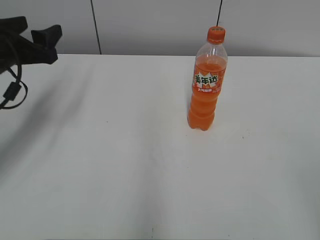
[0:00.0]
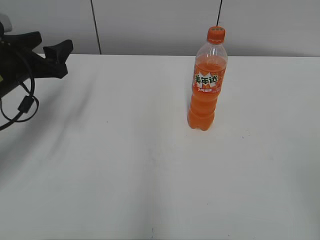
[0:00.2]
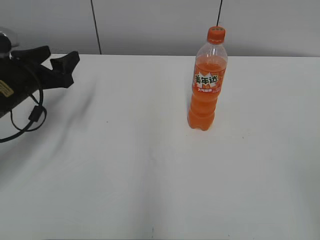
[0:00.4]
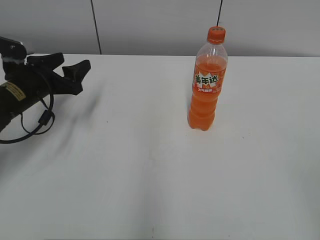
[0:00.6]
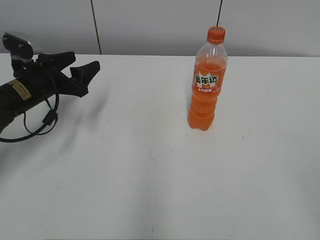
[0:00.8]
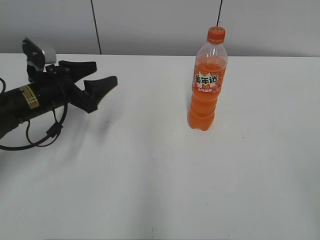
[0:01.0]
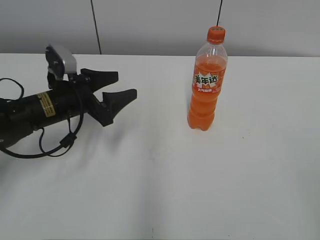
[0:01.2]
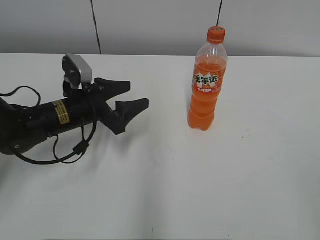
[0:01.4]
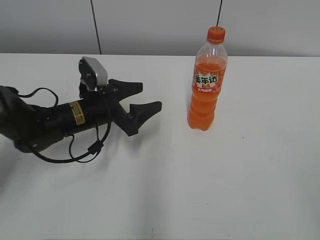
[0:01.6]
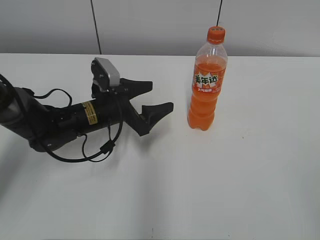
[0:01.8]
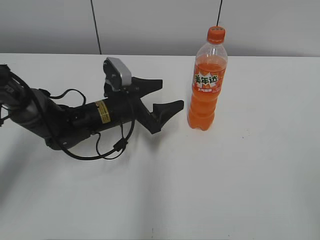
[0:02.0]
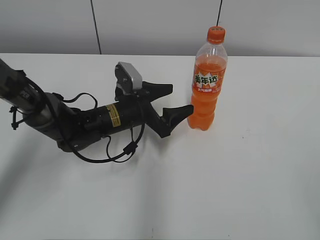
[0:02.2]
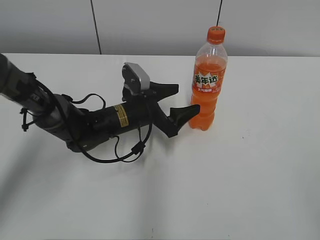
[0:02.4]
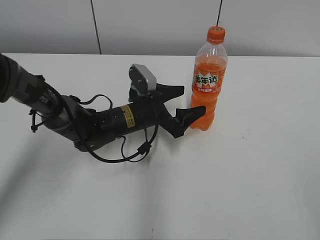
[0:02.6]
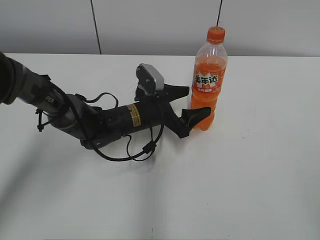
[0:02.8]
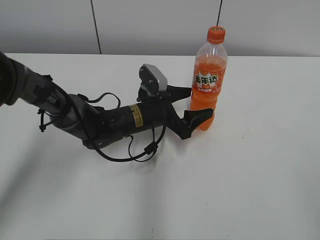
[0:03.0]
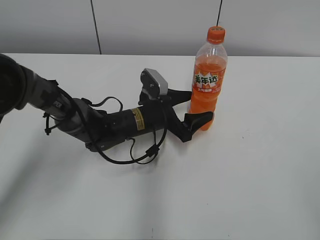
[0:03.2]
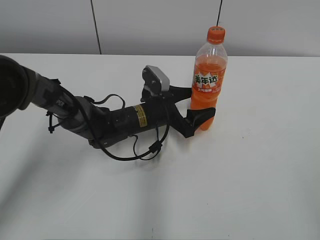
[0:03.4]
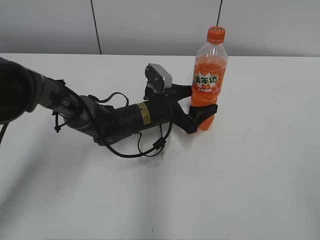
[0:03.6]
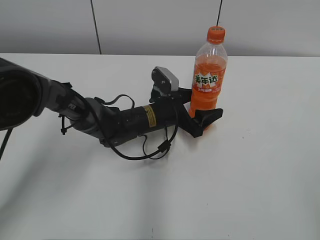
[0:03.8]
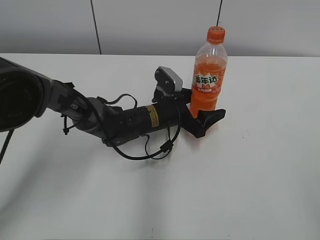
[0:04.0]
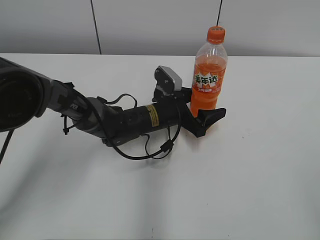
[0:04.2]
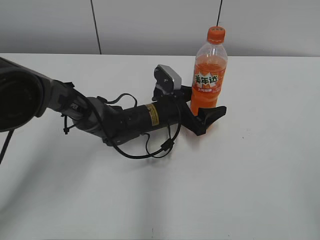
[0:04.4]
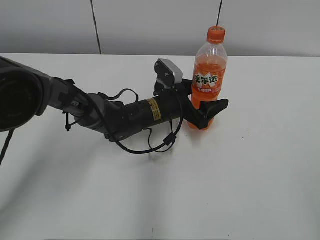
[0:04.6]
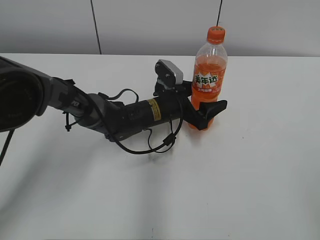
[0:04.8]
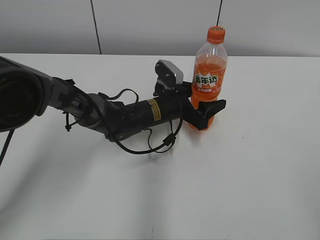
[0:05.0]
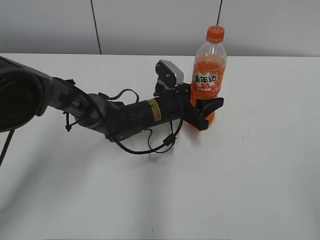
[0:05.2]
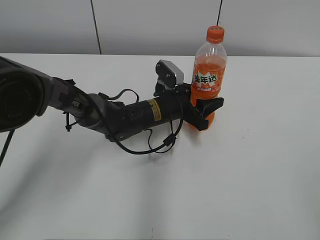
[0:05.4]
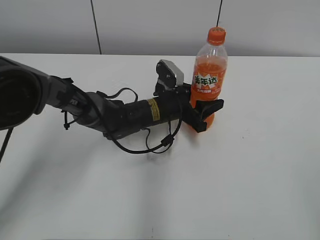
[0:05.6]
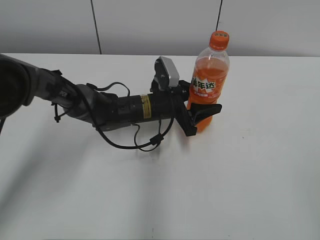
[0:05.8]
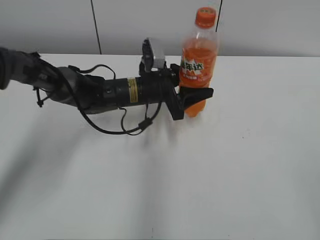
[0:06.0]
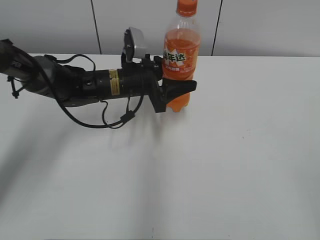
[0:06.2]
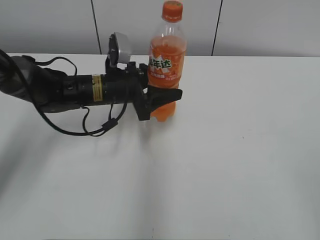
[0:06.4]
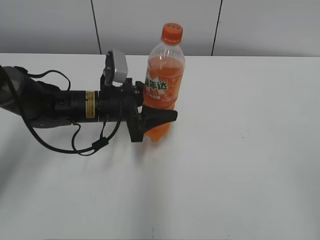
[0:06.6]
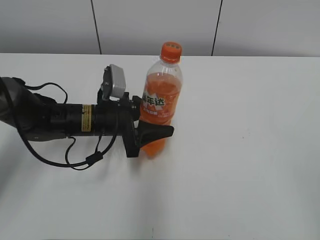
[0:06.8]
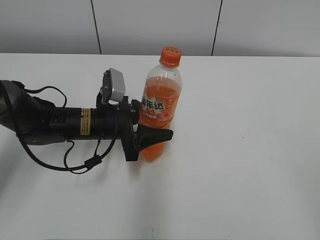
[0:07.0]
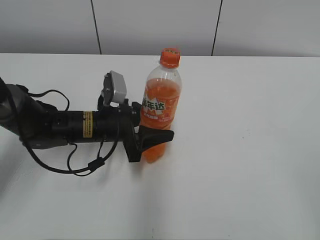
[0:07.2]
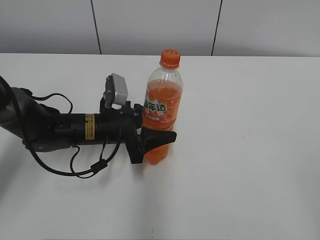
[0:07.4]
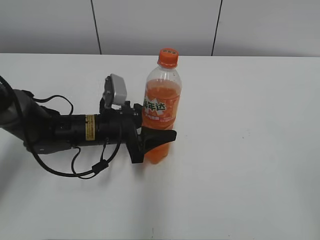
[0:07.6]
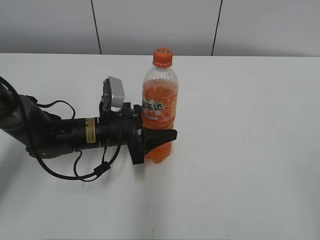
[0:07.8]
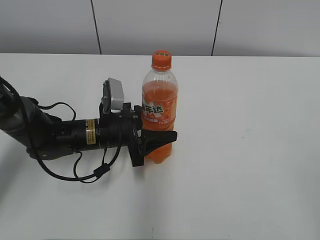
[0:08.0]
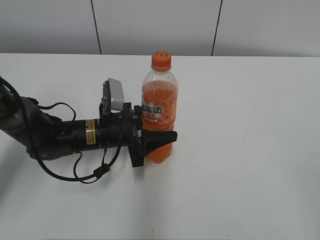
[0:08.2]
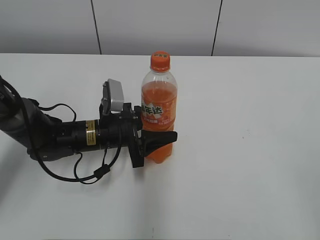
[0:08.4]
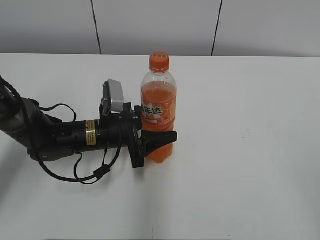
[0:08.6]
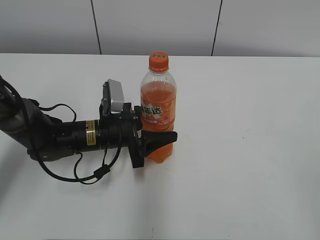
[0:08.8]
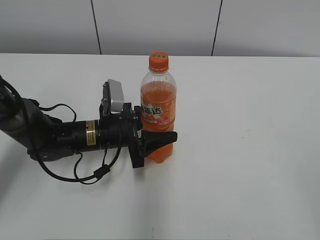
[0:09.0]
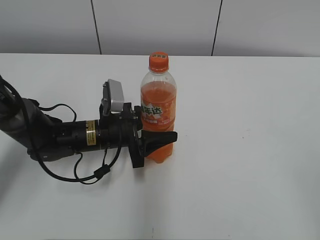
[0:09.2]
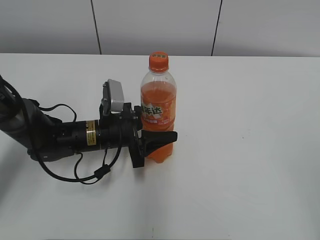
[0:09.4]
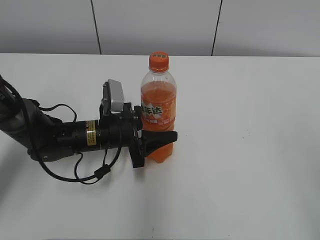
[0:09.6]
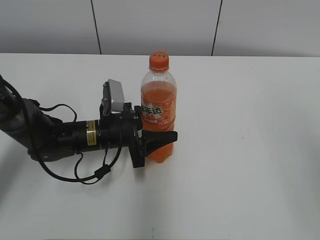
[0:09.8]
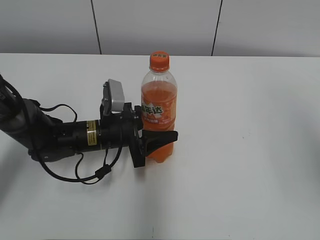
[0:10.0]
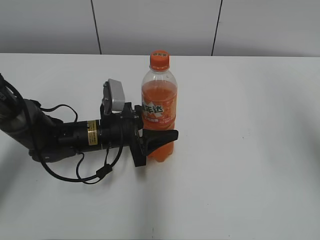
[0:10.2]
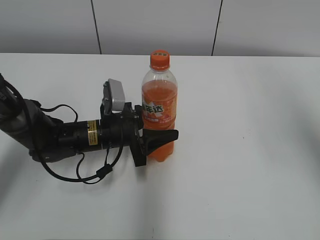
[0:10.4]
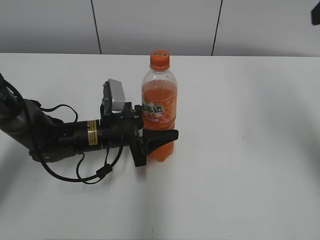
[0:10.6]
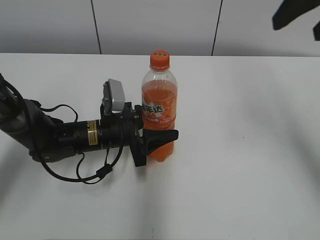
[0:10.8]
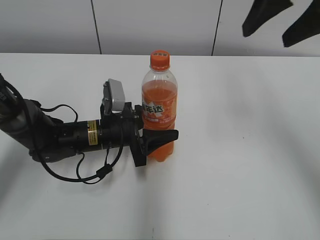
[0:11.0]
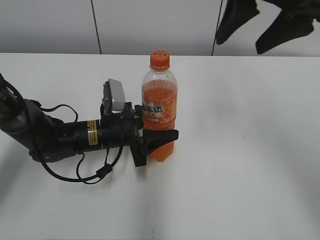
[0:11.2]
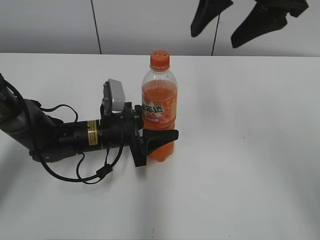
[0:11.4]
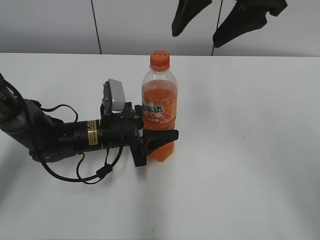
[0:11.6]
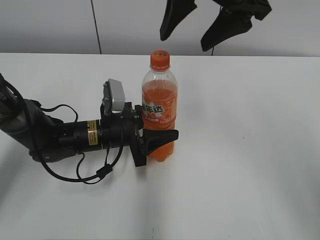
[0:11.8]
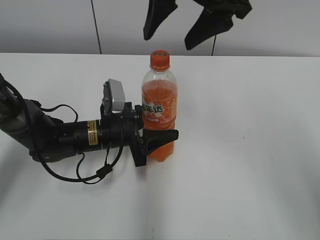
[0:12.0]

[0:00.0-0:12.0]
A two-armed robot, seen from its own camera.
Step, 0:00.0 to 0:05.4: Grab the Mirinda with the left hand.
Step, 0:05.6 to 0:08.2: Move the Mirinda from right to left.
0:00.0 to 0:01.6: The left gripper shifts roughly 15 cm to the right and downward.
0:01.6 to 0:03.0: The left gripper travels to the right by roughly 10 cm.
0:03.0 to 0:04.4: The grippers make only small movements.
0:04.4 to 0:06.0: The left gripper changes place by approximately 5 cm, and closes.
0:06.0 to 0:07.6: The left gripper heads to the left and backward, covering some 10 cm.
0:07.6 to 0:09.0: The grippers stay close to where they were, moving slightly.
0:09.0 to 0:10.4: The right gripper shifts roughly 25 cm forward and upward.
0:10.4 to 0:12.0: The right gripper is displaced to the left and forward by approximately 25 cm.

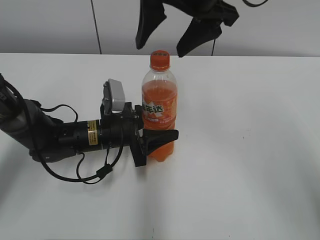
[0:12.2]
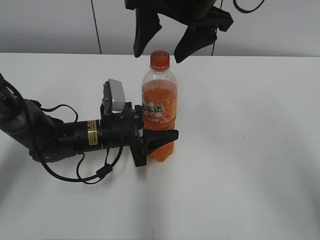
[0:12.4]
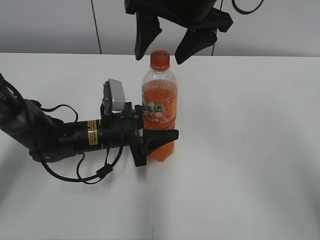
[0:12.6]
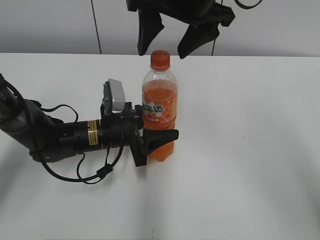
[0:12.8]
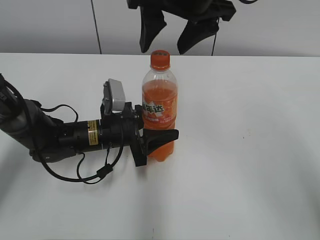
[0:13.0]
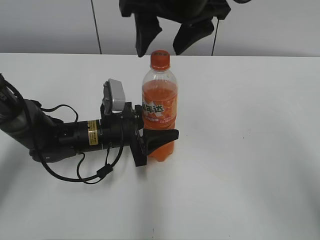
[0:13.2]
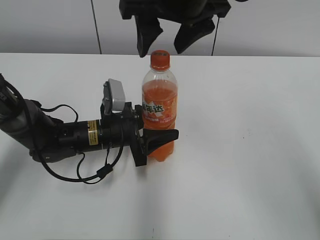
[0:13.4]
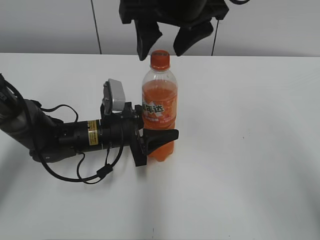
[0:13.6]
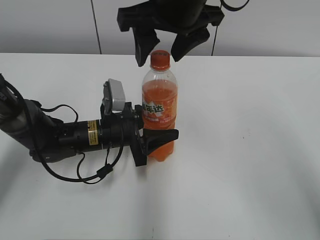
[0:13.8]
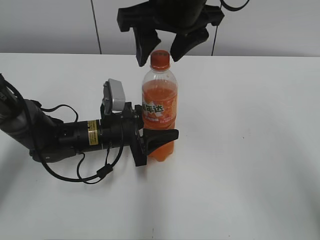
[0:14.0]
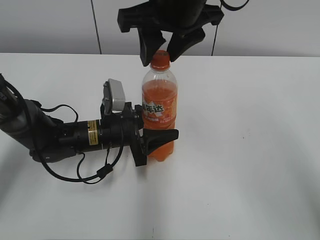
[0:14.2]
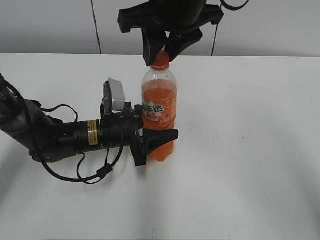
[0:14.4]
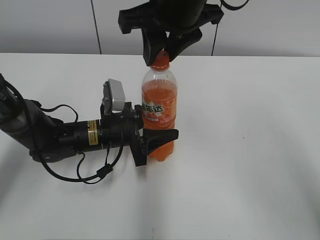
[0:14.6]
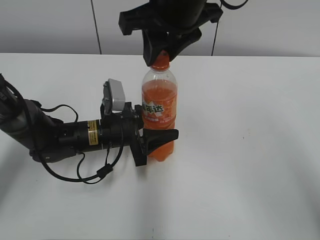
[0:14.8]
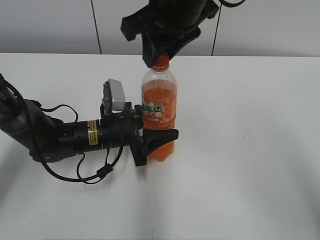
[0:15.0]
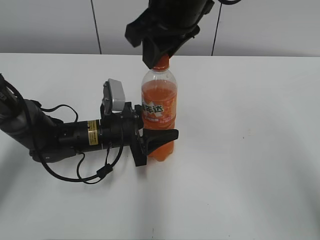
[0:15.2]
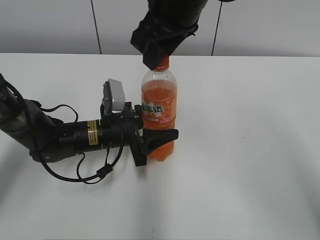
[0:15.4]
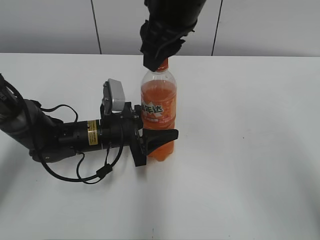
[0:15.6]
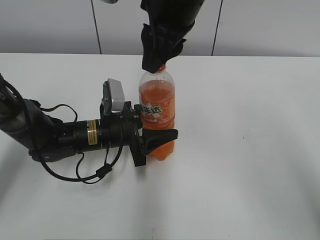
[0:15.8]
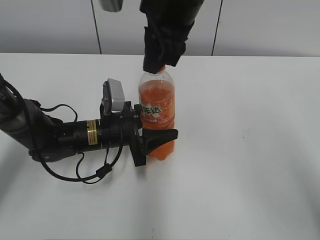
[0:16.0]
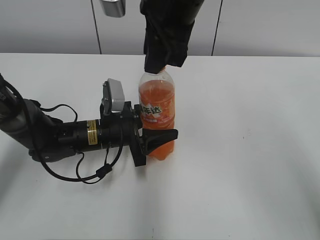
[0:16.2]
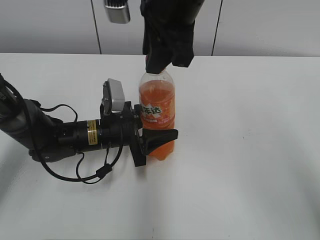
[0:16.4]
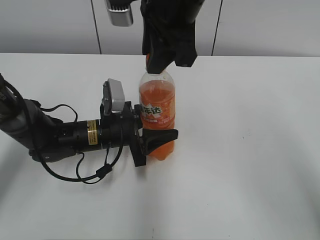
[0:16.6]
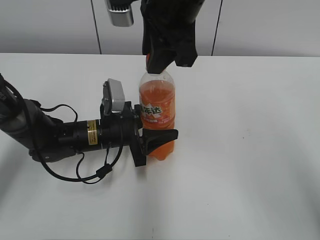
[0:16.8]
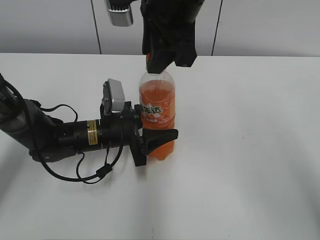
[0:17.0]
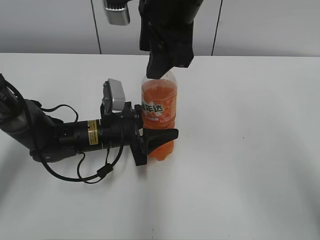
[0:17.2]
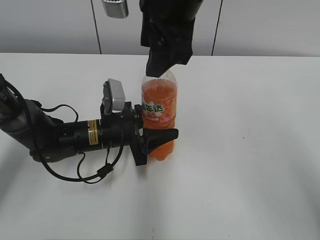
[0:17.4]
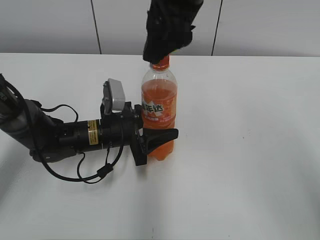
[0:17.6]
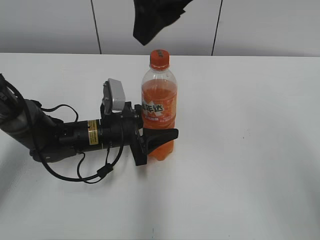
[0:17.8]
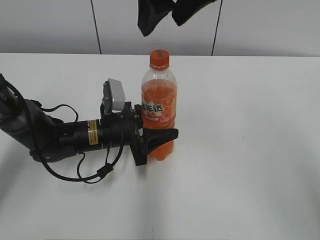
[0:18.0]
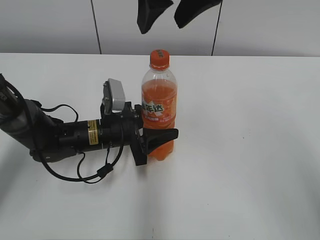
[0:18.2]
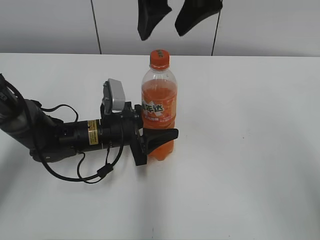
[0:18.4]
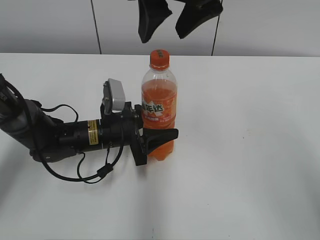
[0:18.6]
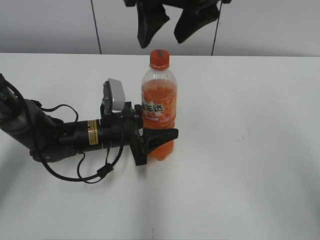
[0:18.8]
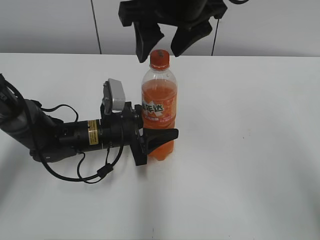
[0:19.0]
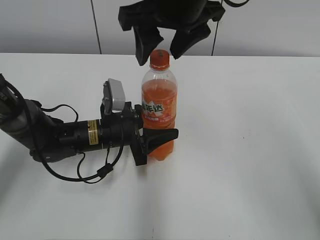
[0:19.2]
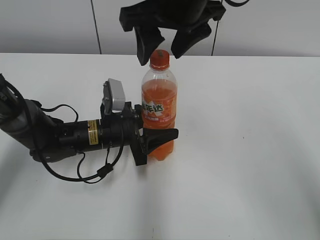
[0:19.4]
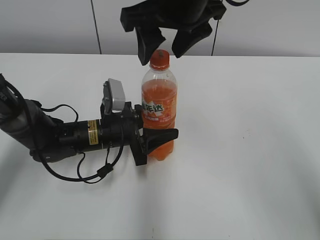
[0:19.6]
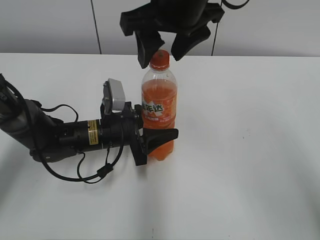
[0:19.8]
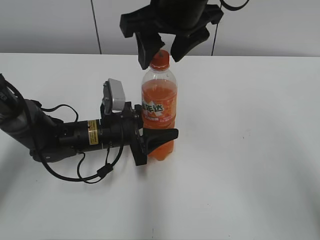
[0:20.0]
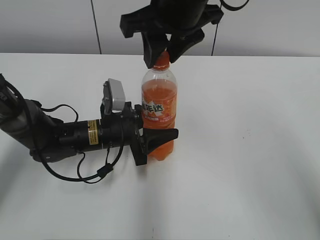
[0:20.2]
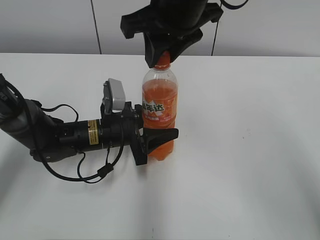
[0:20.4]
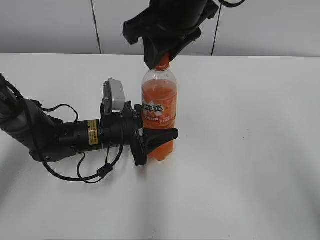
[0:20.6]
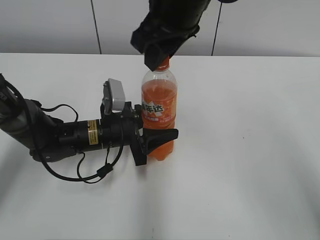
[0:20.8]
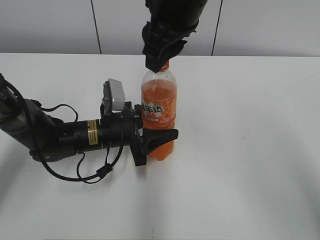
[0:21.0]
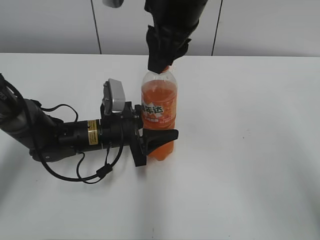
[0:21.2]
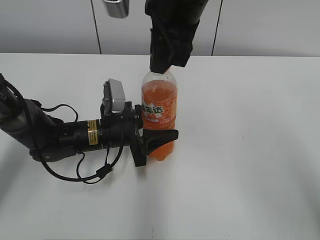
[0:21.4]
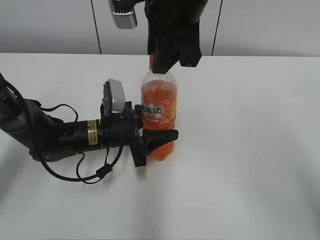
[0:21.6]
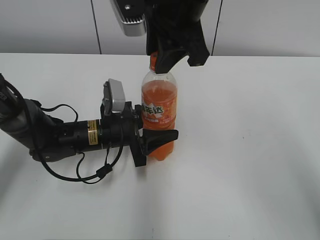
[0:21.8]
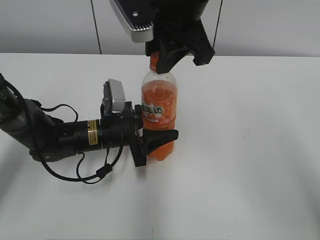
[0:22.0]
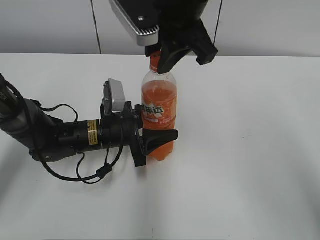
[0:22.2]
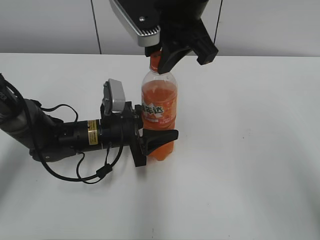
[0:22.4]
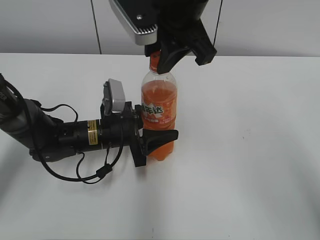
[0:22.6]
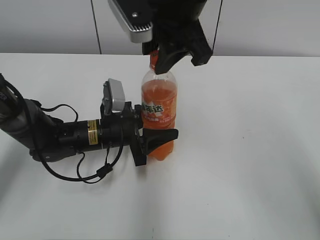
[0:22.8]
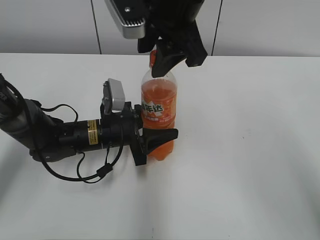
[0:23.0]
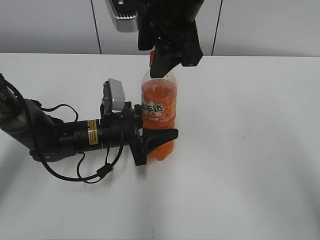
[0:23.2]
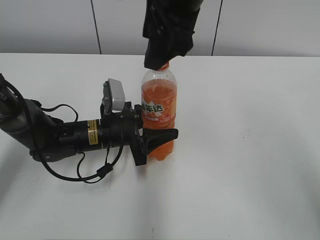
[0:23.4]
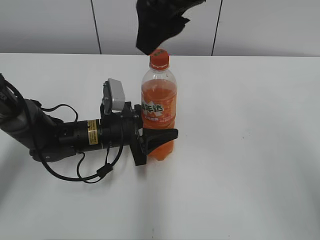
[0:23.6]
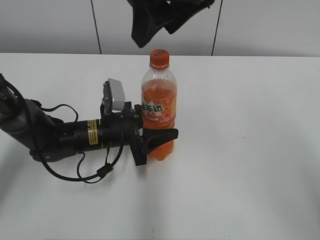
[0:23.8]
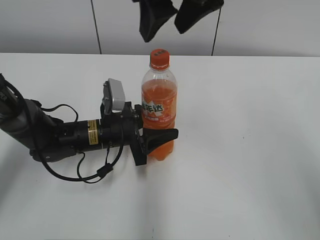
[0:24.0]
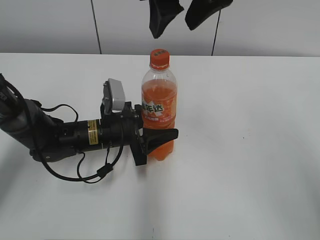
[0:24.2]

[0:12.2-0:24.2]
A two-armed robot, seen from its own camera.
0:12.2 to 0:13.8: The grippers stay close to where they were, moving slightly.
0:13.8 to 0:15.2: The right gripper closes its fingers.
0:16.6 to 0:18.2: The right gripper ends up about 5 cm from where it was, and opens up.
0:18.2 to 0:19.8: The right gripper travels downward by approximately 5 cm.
0:19.8 to 0:21.2: The right gripper closes its fingers.
0:22.6 to 0:24.2: The right gripper opens its fingers.
